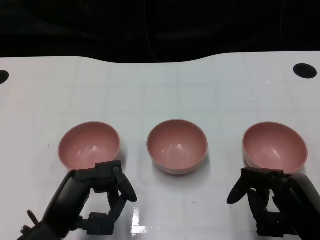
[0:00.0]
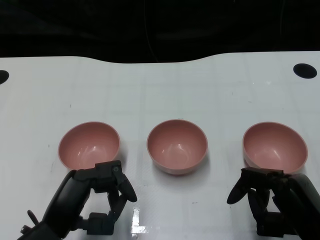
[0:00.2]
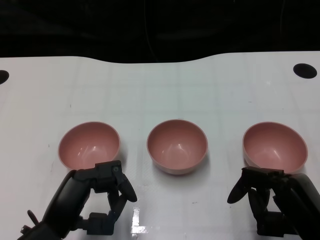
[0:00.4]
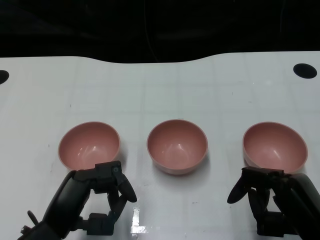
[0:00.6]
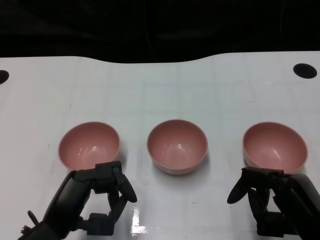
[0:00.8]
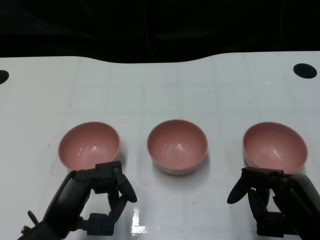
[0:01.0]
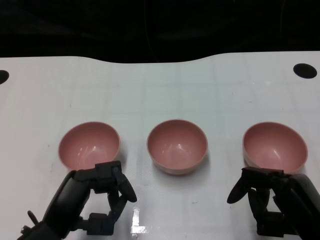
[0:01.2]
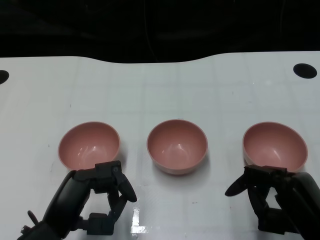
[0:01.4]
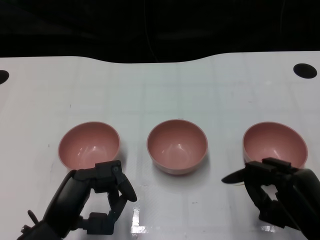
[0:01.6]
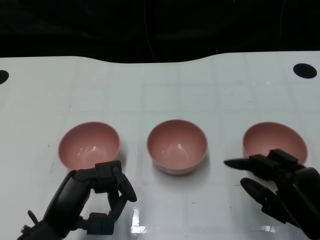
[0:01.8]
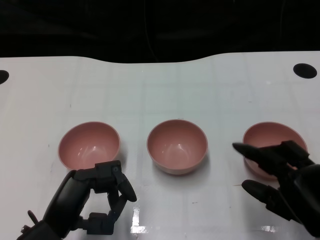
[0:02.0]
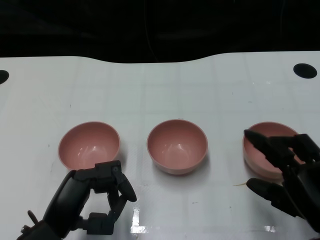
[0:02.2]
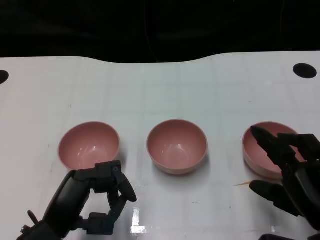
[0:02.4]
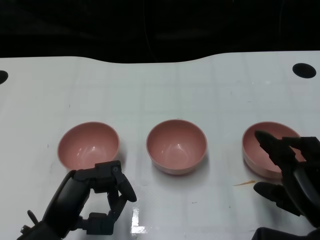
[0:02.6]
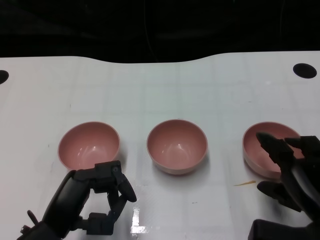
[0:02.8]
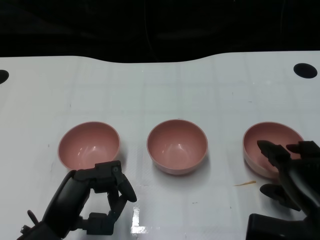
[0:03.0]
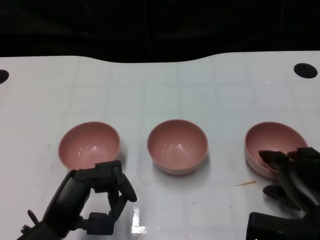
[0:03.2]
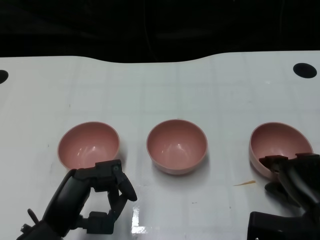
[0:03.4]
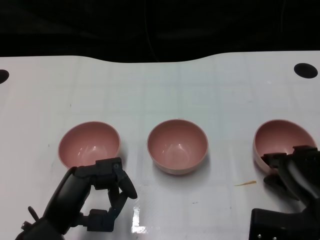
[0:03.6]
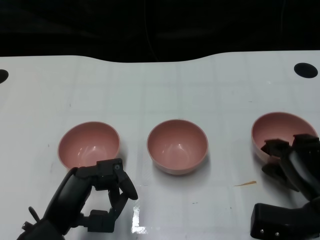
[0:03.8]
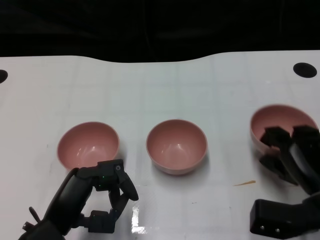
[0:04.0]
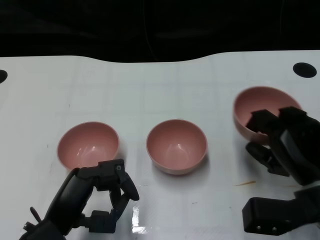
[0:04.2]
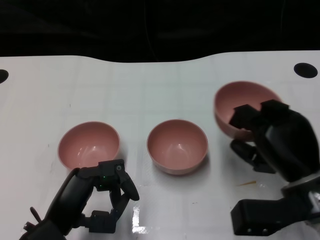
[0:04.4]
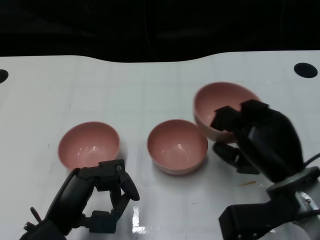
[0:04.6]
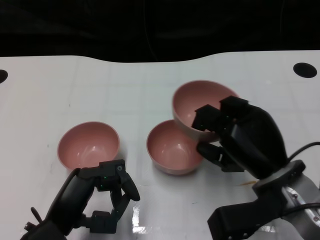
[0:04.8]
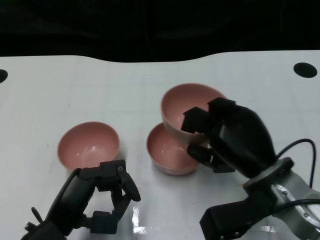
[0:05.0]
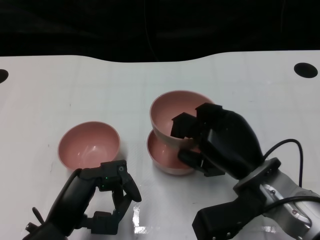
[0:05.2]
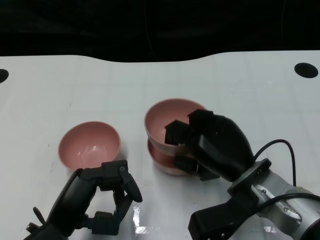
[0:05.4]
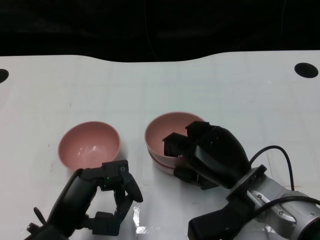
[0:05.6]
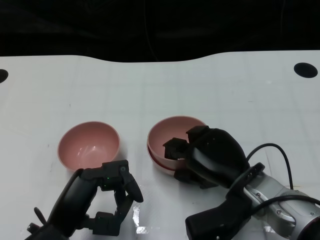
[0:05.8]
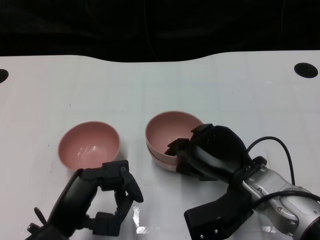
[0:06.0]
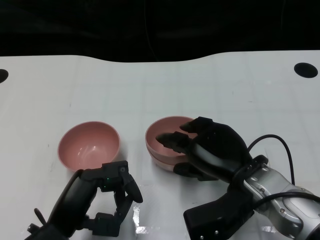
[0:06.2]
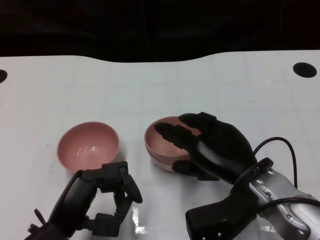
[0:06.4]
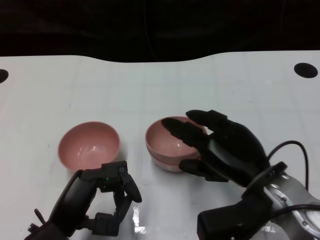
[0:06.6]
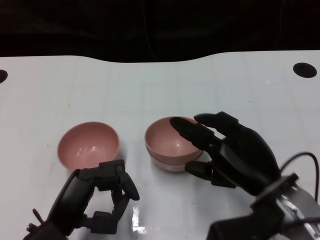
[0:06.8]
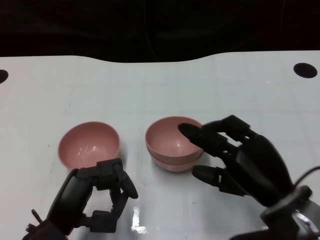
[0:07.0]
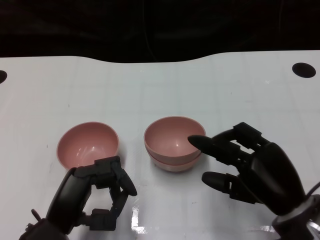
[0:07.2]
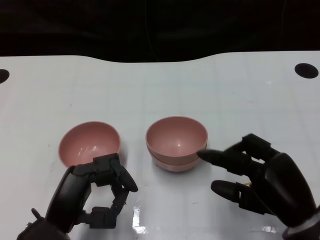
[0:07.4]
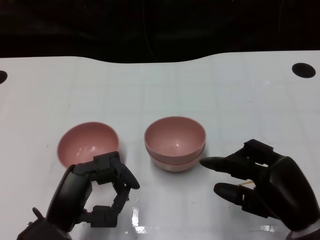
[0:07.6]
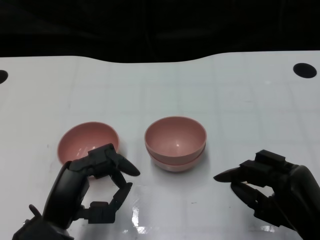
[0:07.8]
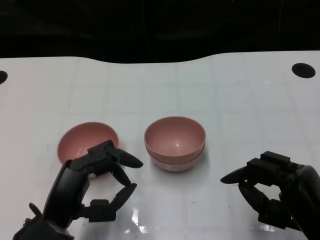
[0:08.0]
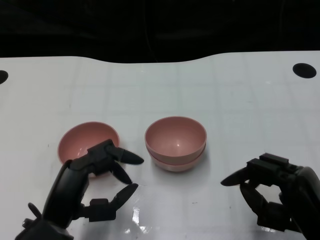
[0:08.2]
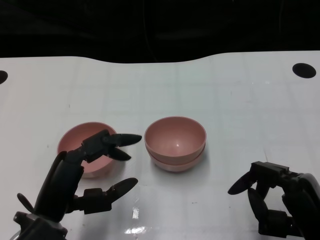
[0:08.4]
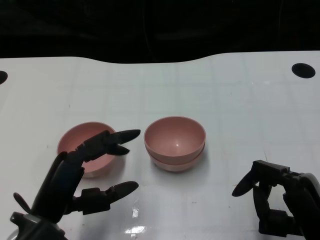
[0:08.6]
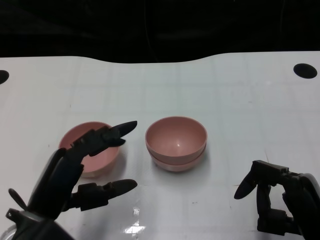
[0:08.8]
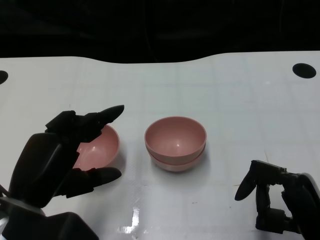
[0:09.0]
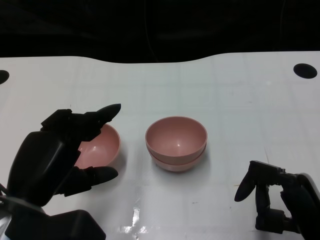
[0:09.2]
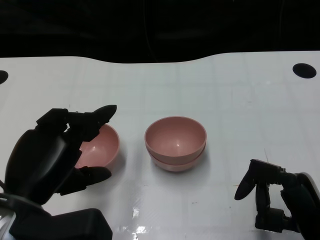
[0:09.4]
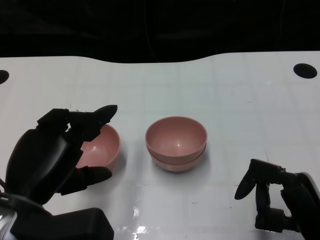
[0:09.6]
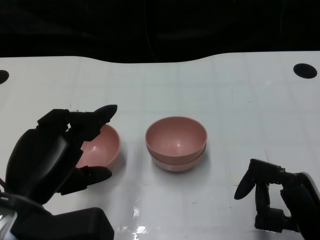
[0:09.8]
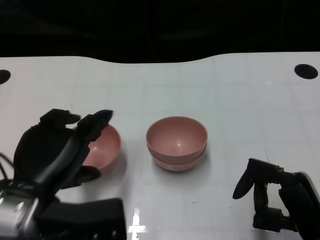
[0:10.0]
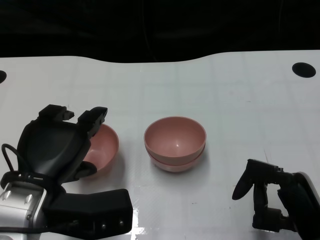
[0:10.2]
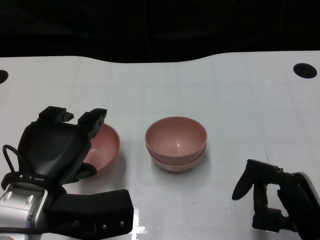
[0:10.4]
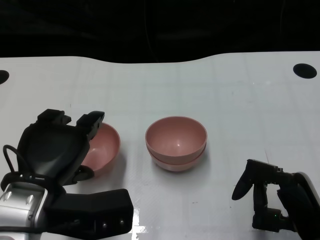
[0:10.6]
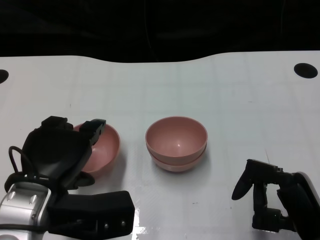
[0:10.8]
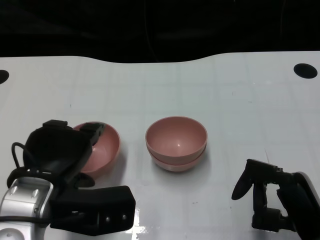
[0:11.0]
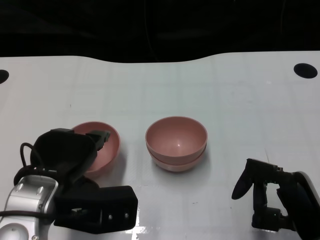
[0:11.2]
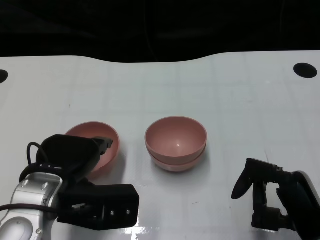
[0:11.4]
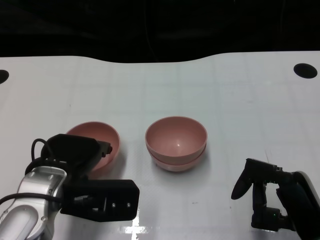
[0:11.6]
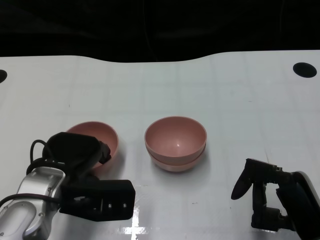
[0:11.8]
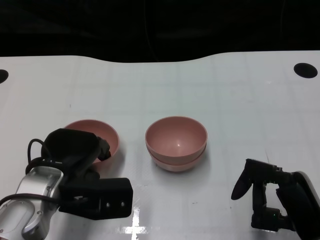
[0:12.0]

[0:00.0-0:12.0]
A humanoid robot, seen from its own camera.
Task of the whole recording: Pick up the bowl on one side of the table and place it on top of the middle bowl, then pick up the bowl on the other side of the table and place it on top of the middle bowls.
Step, 0:01.4 to 0:03.8: Grasp the bowl on the right with the right gripper.
Step, 0:04.0 to 0:07.0: Place the bowl on the right onto the bowl in the middle with right gripper.
0:03.0 to 0:04.4: The right hand changes place by approximately 5 cm.
0:04.4 to 0:06.0: The right hand moves to the left, approximately 5 cm.
0:06.0 to 0:07.6: The right hand travels backward and to the right by about 10 cm.
0:07.6 to 0:09.0: The left hand is displaced upward by approximately 5 cm.
0:10.4 to 0:12.0: The left hand shifts by some 5 cm.

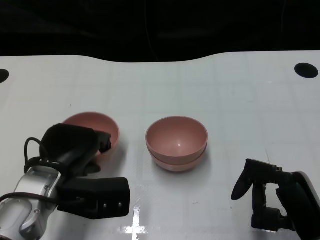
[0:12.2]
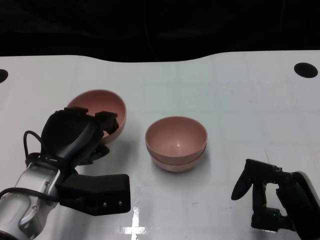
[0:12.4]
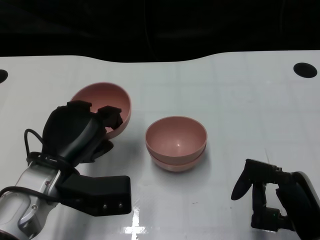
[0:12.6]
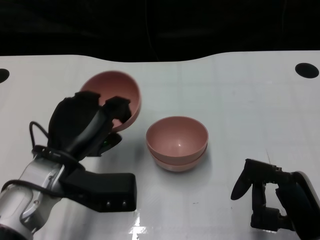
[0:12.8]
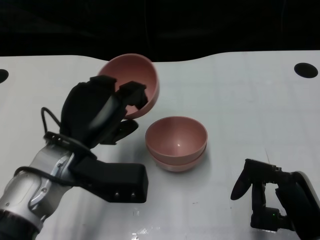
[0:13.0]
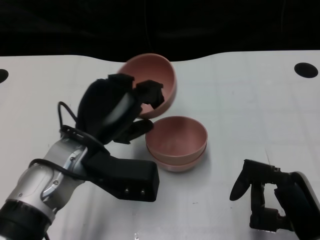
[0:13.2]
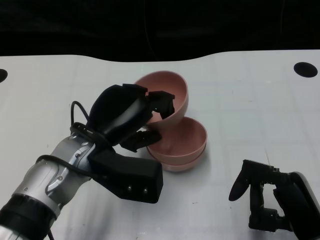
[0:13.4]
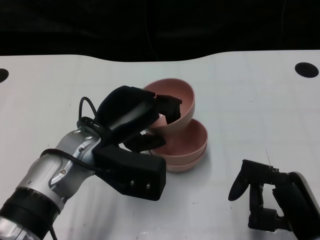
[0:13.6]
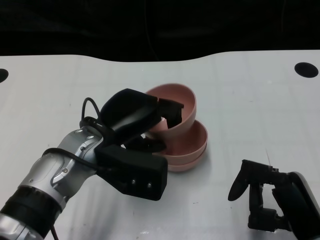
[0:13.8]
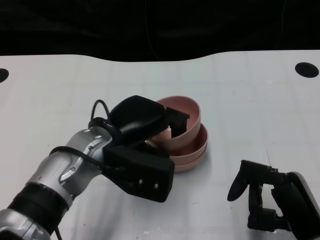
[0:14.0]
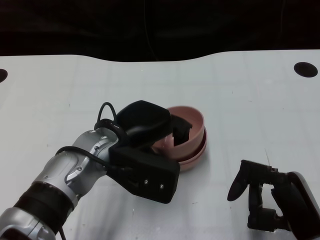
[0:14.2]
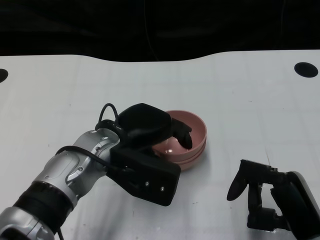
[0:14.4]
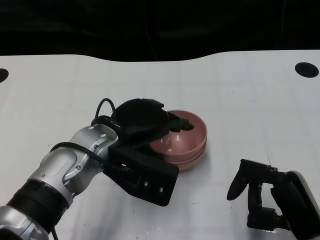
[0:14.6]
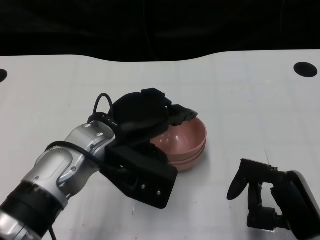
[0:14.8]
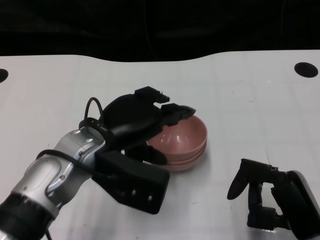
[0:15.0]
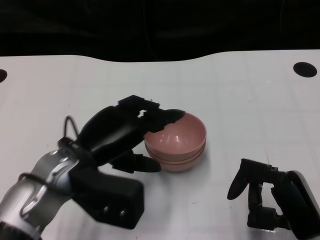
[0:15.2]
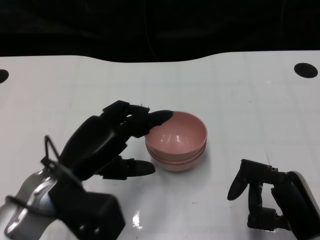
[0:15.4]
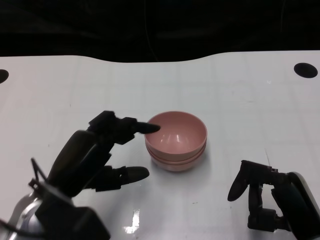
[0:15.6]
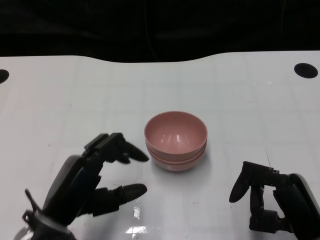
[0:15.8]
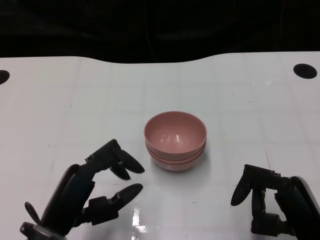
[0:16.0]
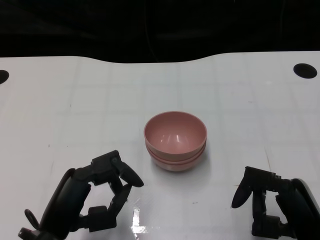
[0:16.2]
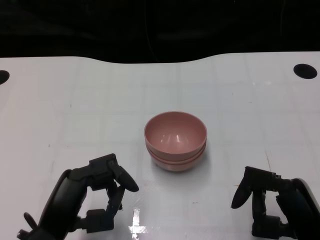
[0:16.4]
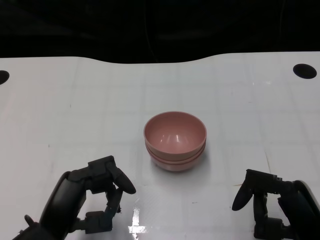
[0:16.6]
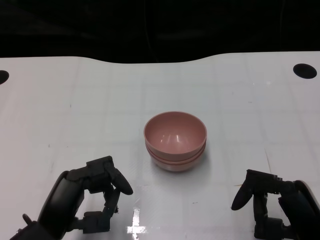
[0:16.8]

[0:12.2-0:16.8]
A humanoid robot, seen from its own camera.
Task of the whole recording: Pick up the bowl on one side of the table and place it on top of the middle bowl, then pick up the bowl on the other side of the table and place it on top of the middle bowls.
Step, 0:12.4 to 0:15.4: Place the bowl on the left onto the bowl in the middle with left gripper.
0:12.2 to 0:13.8: The left hand is displaced to the right by some 5 cm.
0:15.2 to 0:16.8: The left hand moves backward and downward, some 10 cm.

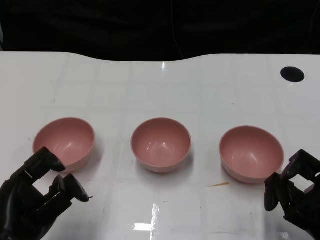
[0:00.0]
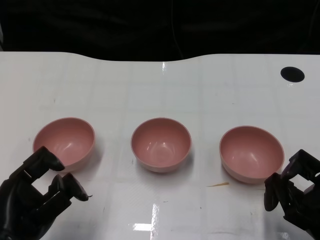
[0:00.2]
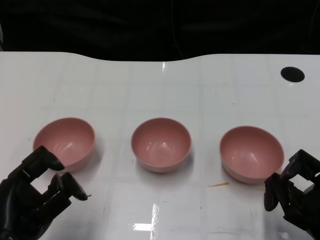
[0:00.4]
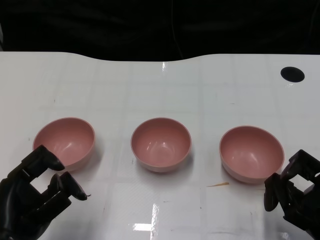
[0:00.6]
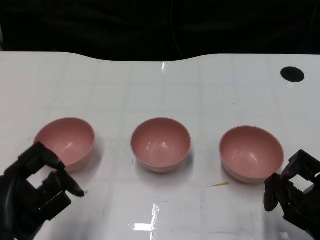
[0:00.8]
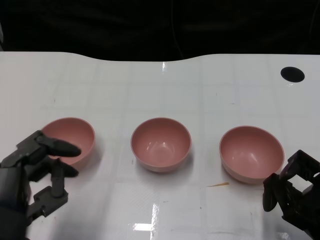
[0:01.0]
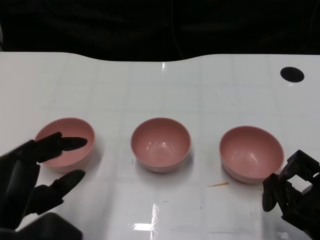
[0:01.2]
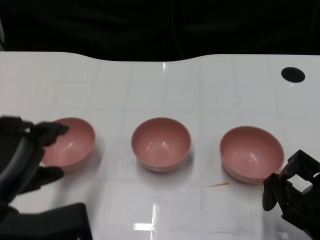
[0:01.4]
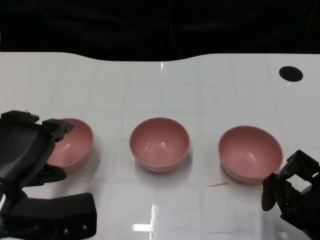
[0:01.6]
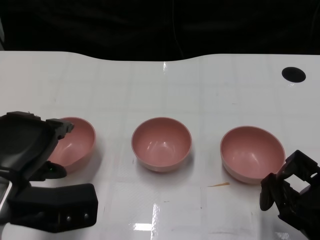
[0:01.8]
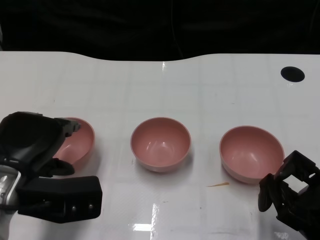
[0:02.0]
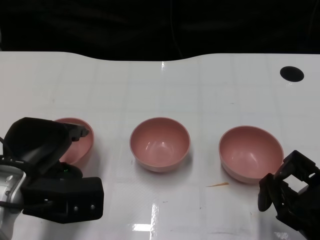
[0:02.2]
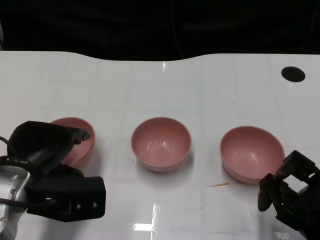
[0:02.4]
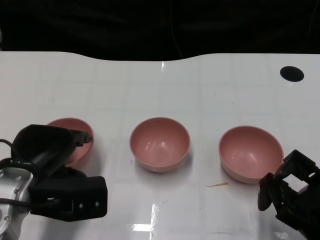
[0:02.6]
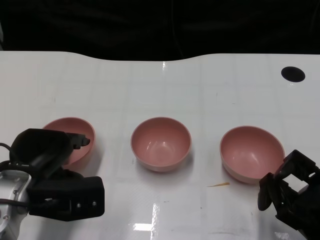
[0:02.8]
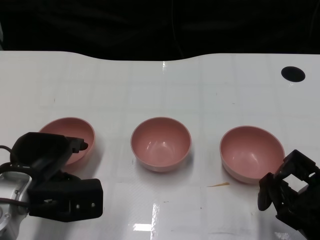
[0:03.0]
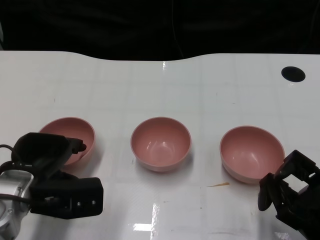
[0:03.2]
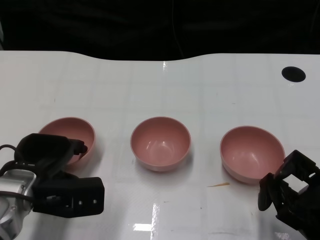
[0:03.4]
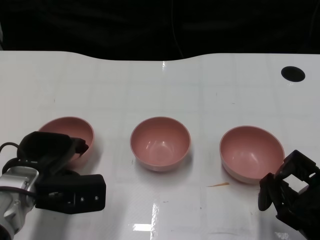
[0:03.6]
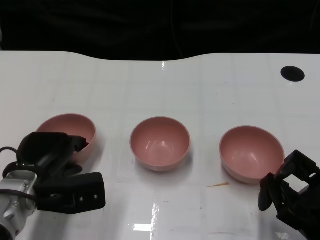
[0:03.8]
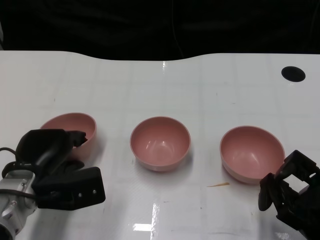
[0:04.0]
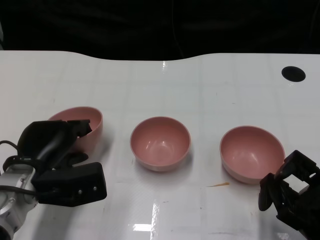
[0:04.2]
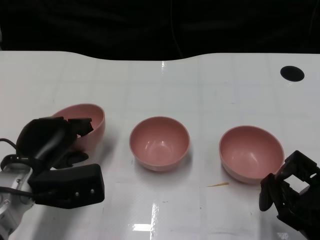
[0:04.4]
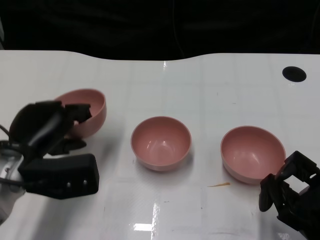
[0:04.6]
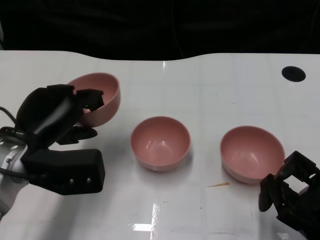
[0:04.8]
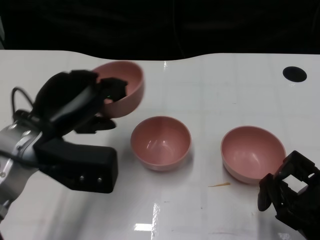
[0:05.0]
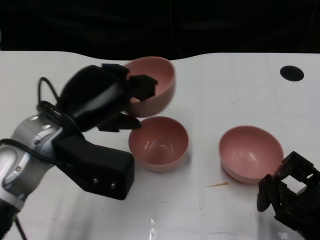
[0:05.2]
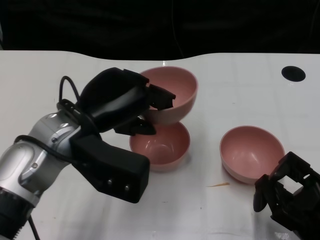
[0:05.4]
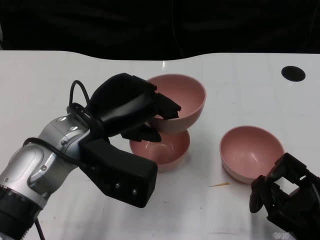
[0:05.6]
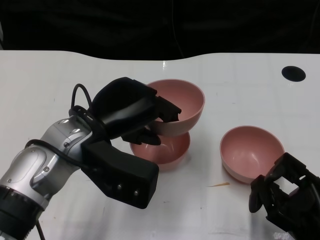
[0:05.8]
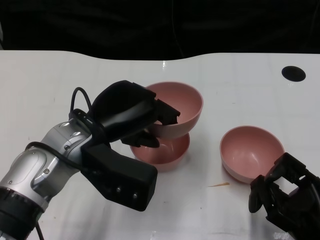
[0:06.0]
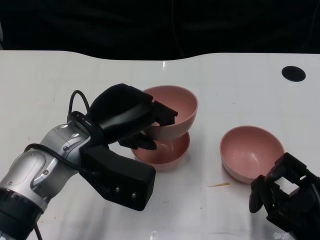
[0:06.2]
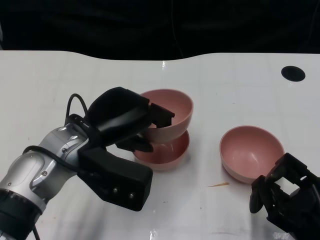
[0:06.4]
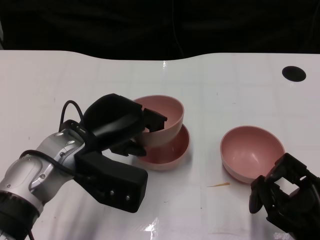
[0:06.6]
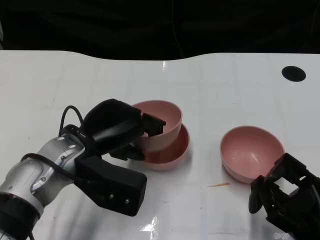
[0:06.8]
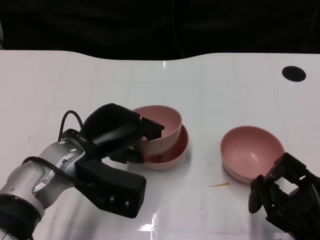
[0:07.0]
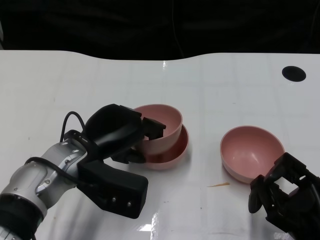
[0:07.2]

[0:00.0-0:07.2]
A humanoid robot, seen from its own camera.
Task of the whole recording: Pick up the bowl on one side of the table and place it on top of the middle bowl, then pick up the bowl on the other side of the table and place it on top of the middle bowls.
Step, 0:00.8 to 0:04.2: Grasp the bowl on the left with the left gripper.
0:01.4 to 0:02.8: The left hand is displaced forward and downward by about 10 cm.
0:02.8 to 0:04.4: The hands move only a little.
0:04.4 to 0:05.8: The left hand moves upward and to the right, roughly 10 cm.
0:05.8 to 0:07.2: The left hand is displaced downward by some 5 cm.
